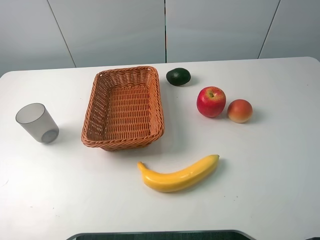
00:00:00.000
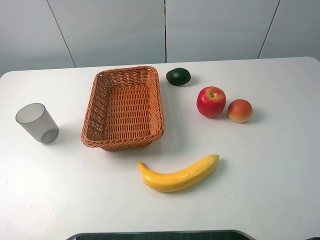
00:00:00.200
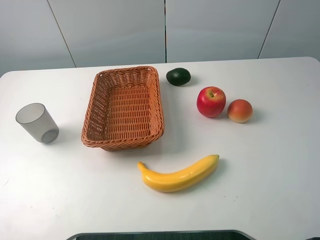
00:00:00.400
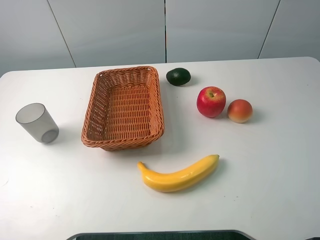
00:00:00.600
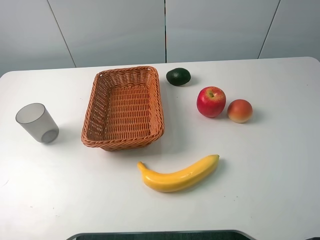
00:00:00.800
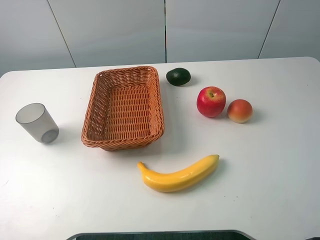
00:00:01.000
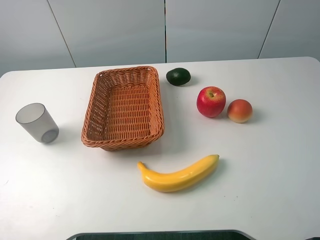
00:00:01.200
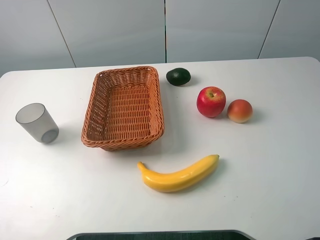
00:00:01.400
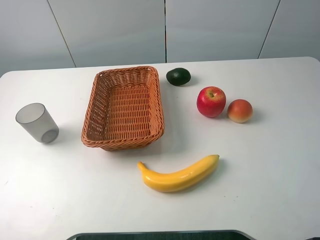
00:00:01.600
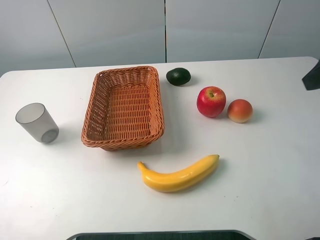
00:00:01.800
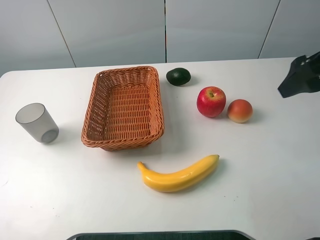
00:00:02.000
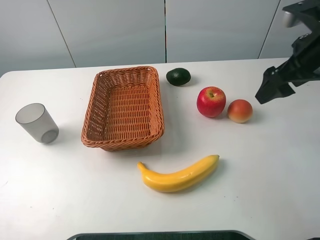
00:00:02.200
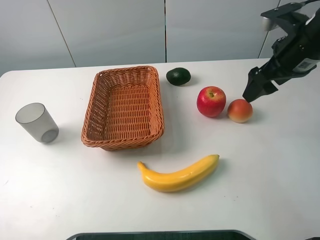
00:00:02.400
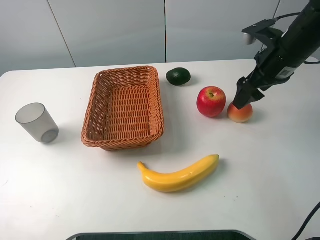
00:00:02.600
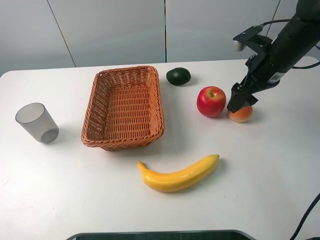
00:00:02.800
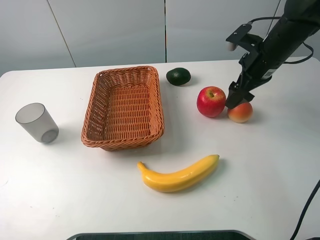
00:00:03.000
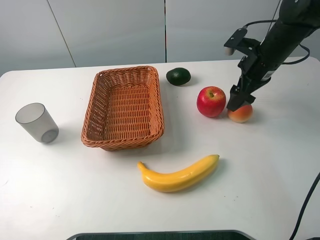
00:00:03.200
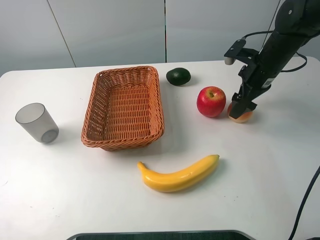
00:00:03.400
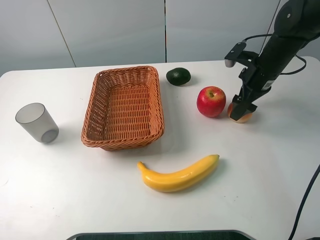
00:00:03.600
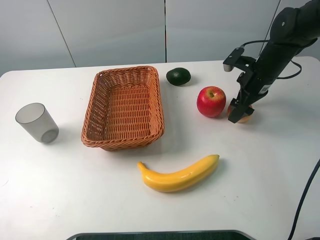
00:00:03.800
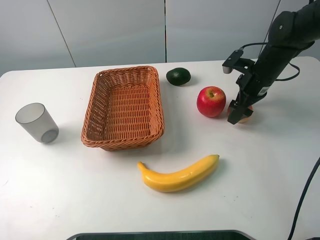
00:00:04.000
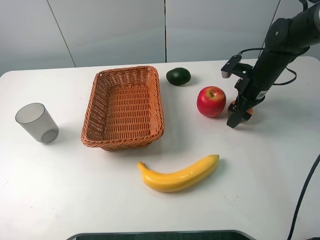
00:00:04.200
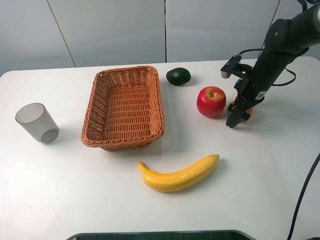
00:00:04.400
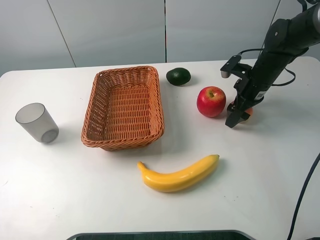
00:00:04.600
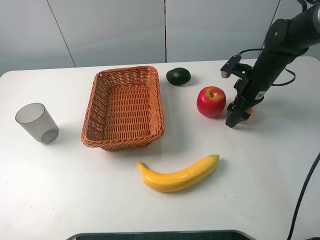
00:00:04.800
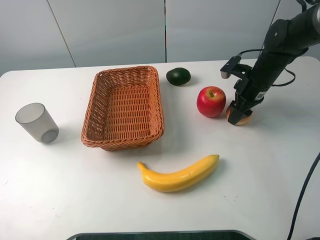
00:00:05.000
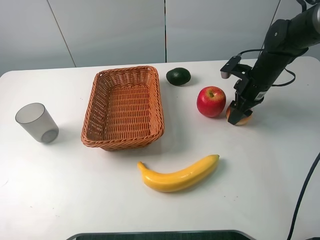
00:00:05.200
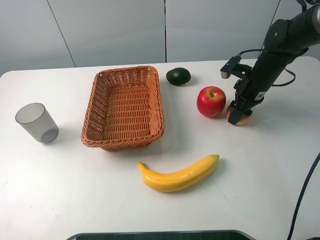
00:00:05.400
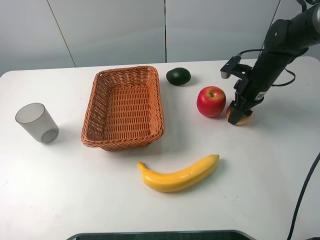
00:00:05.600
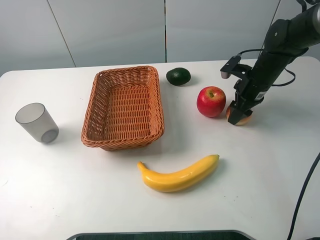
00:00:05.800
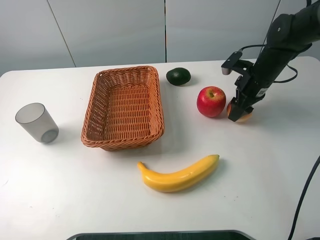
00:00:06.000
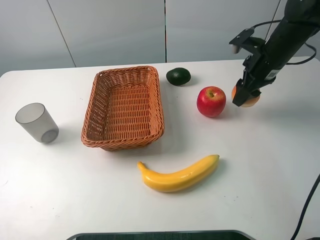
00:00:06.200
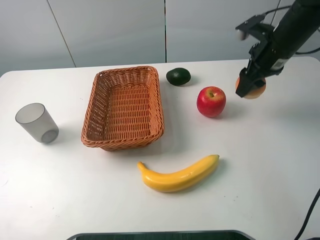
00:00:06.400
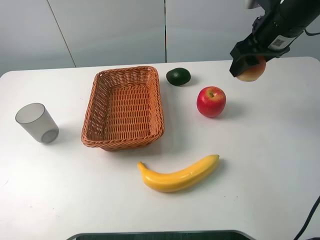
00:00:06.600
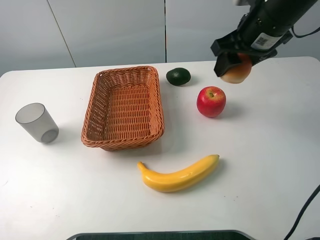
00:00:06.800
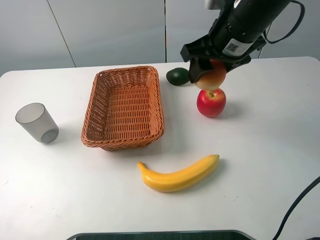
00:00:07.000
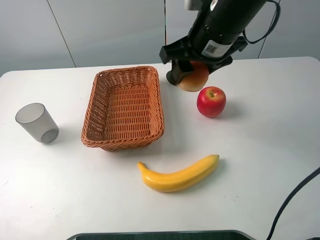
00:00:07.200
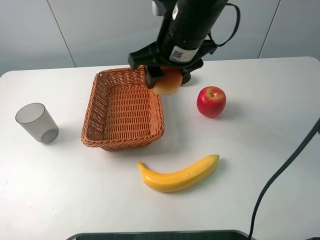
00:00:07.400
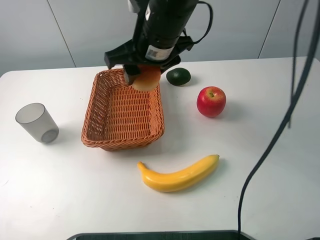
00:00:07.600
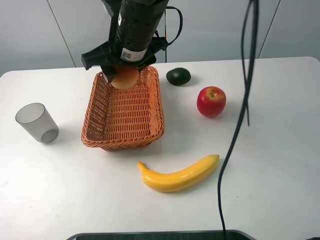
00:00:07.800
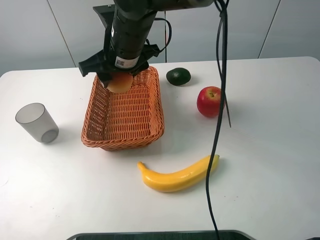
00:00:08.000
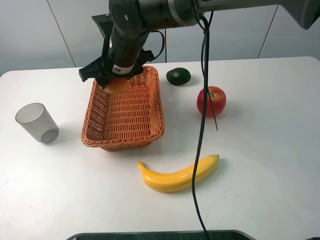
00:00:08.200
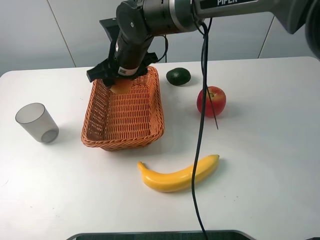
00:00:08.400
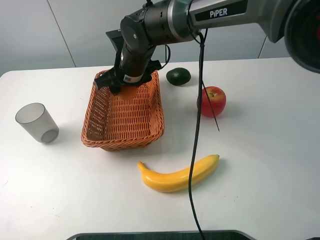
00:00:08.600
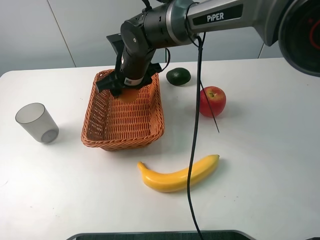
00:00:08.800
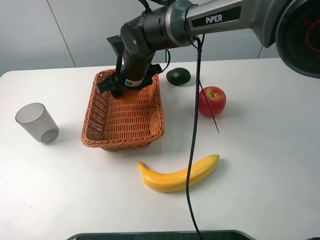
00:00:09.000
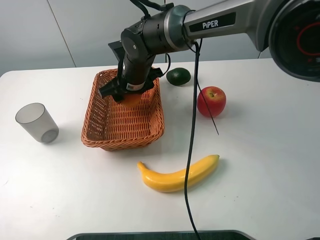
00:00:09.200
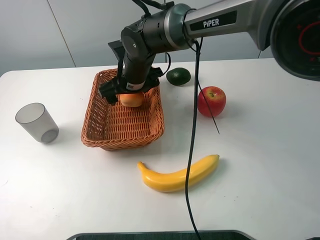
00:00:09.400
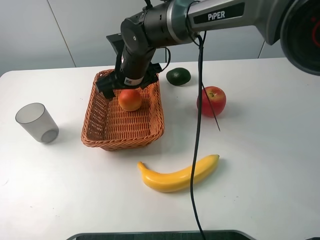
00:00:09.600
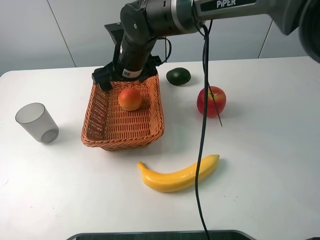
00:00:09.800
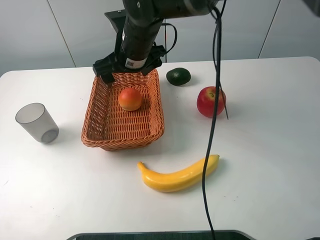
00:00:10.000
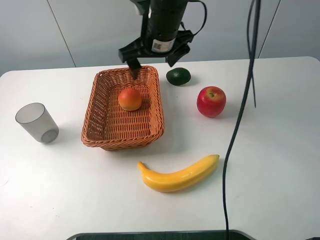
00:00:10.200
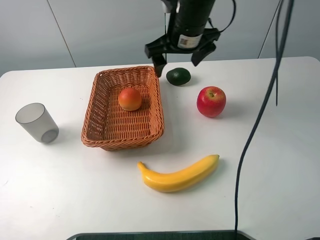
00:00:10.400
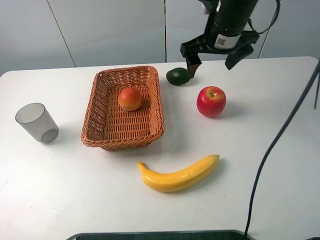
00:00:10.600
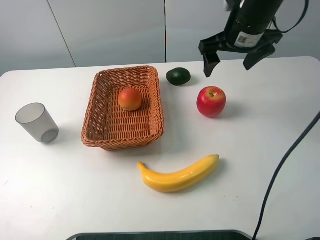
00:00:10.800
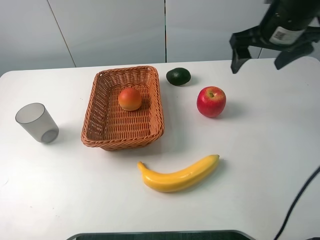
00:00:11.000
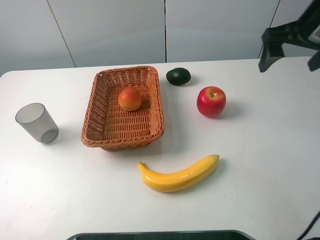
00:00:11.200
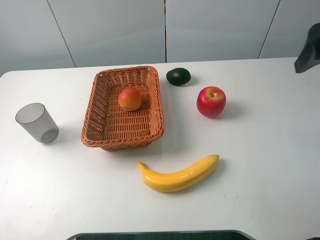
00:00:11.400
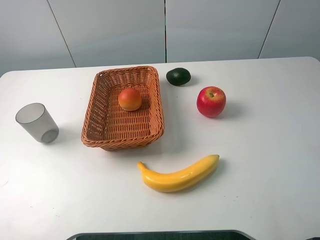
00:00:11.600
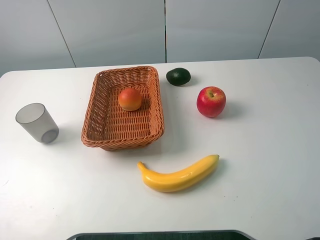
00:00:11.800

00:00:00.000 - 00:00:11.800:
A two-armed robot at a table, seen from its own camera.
00:00:01.400 - 00:00:03.000: The right gripper goes roughly 35 cm forward and downward.
00:00:03.000 - 00:00:04.400: The right gripper heads downward, covering roughly 5 cm.
00:00:04.400 - 00:00:06.000: The right gripper closes up.
00:00:06.000 - 00:00:07.400: The right gripper is displaced to the left, upward and backward by some 25 cm.
00:00:07.400 - 00:00:08.800: The right gripper is displaced downward, to the left and forward by approximately 15 cm.
00:00:08.800 - 00:00:10.400: The right gripper is displaced to the right and upward by some 15 cm, and opens up.
00:00:10.400 - 00:00:11.800: The right gripper goes approximately 35 cm backward and to the right.

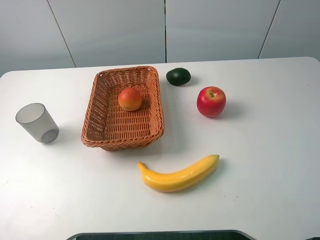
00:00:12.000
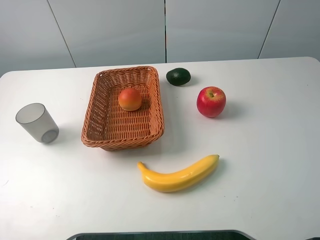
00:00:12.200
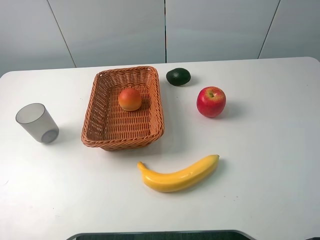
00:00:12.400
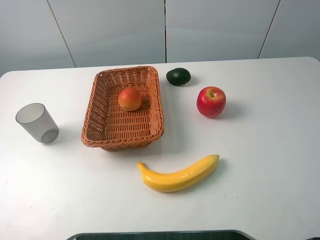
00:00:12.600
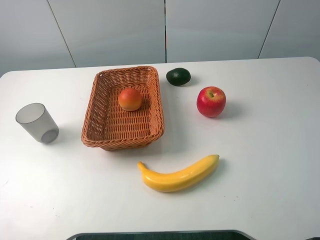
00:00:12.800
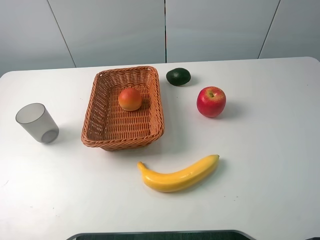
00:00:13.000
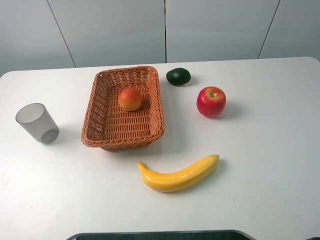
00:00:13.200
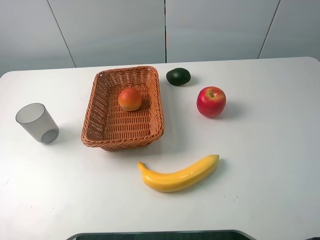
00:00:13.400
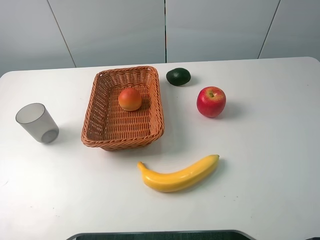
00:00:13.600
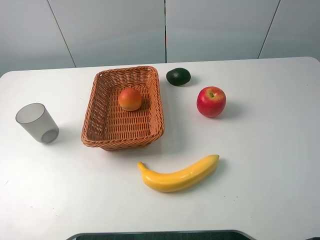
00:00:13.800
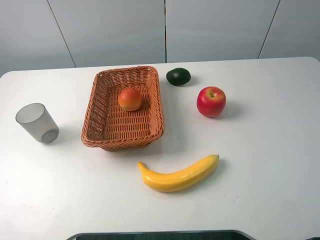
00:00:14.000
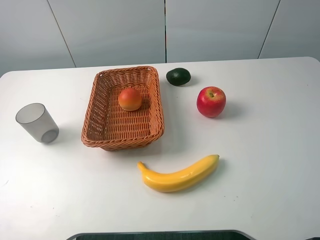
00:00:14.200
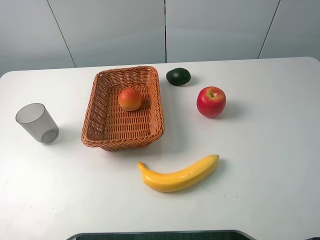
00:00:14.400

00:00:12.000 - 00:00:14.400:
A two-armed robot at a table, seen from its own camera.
00:00:13.200 - 00:00:14.400: Both grippers stay put.
